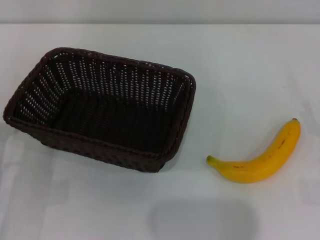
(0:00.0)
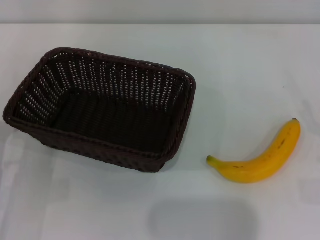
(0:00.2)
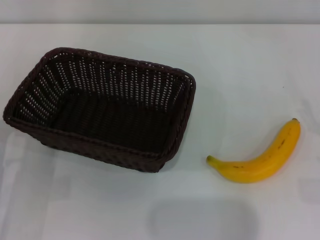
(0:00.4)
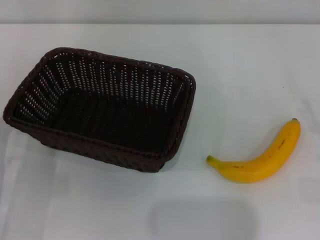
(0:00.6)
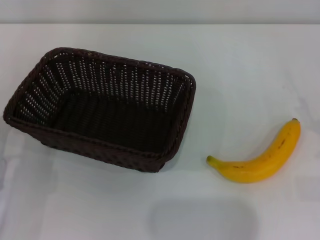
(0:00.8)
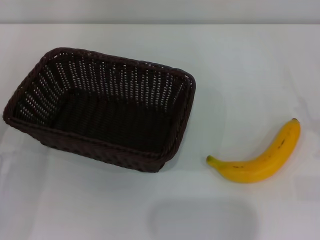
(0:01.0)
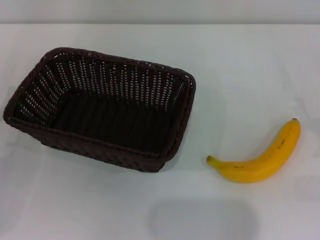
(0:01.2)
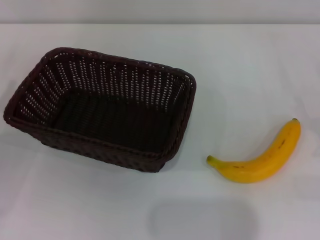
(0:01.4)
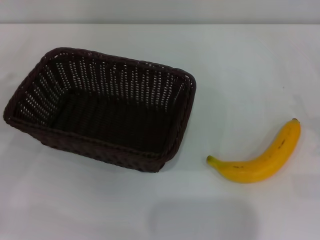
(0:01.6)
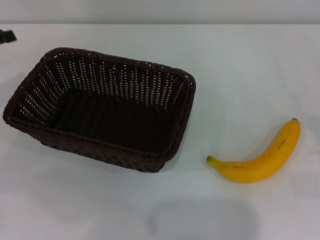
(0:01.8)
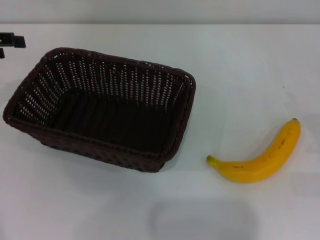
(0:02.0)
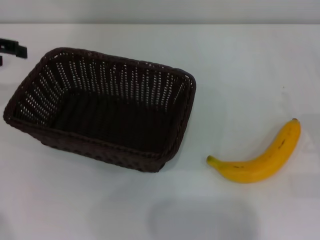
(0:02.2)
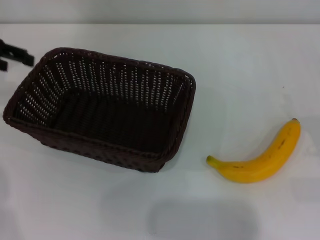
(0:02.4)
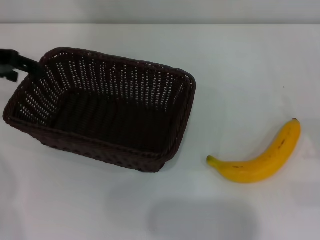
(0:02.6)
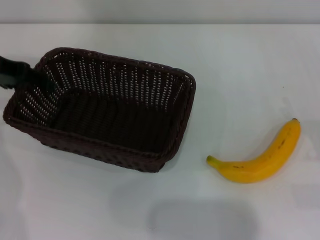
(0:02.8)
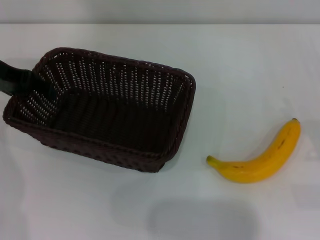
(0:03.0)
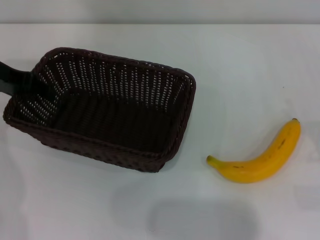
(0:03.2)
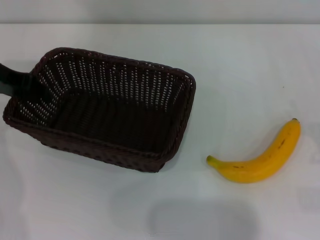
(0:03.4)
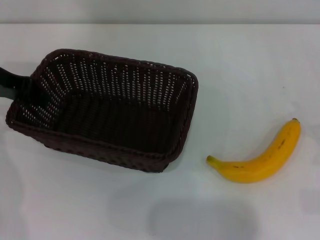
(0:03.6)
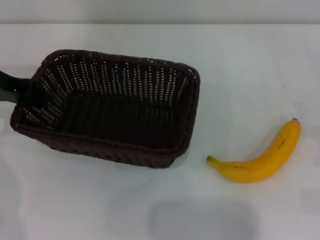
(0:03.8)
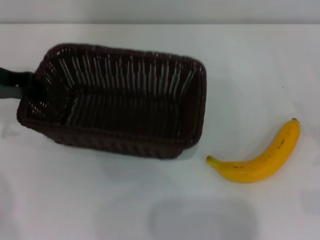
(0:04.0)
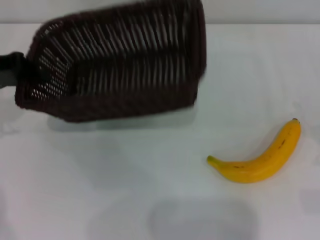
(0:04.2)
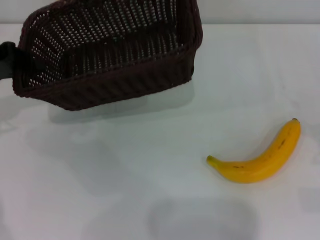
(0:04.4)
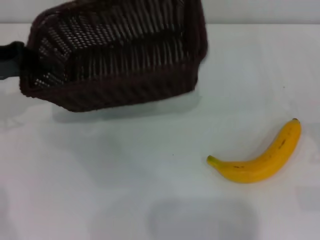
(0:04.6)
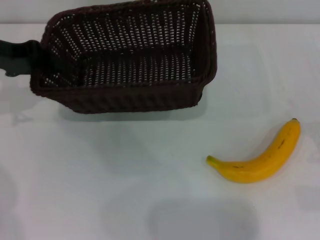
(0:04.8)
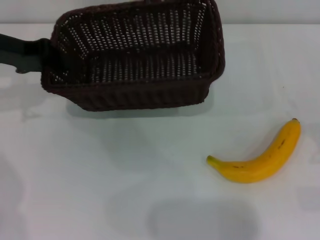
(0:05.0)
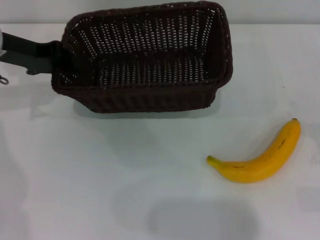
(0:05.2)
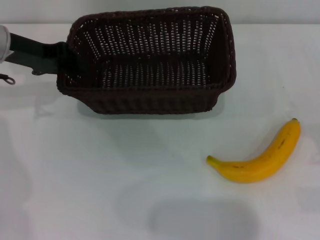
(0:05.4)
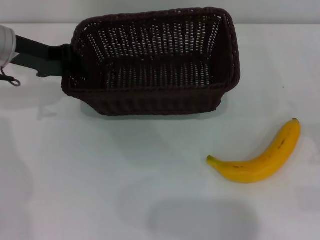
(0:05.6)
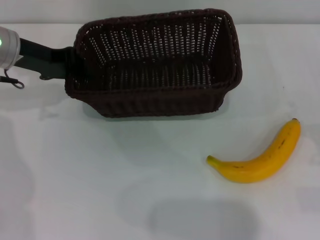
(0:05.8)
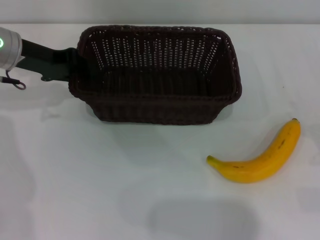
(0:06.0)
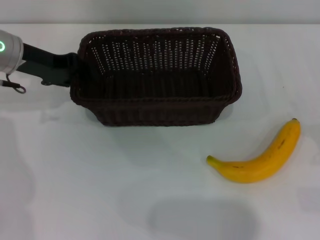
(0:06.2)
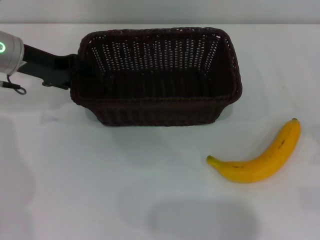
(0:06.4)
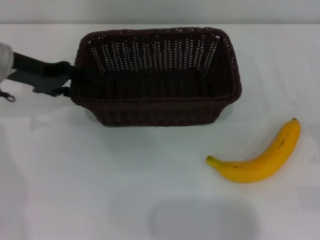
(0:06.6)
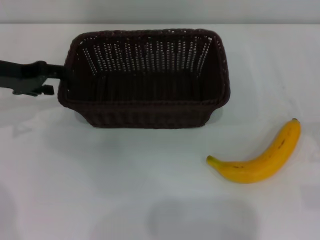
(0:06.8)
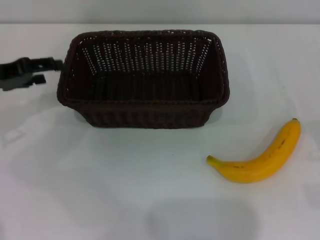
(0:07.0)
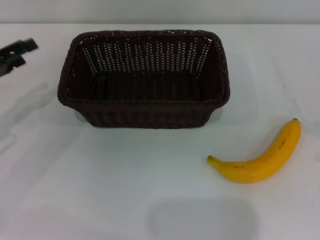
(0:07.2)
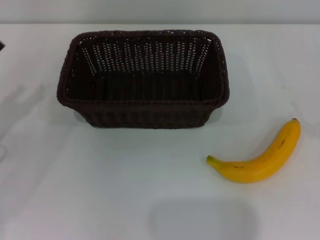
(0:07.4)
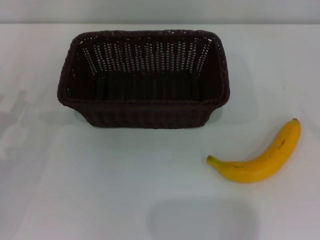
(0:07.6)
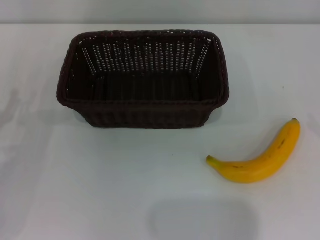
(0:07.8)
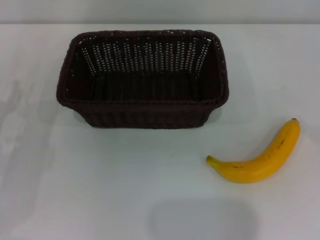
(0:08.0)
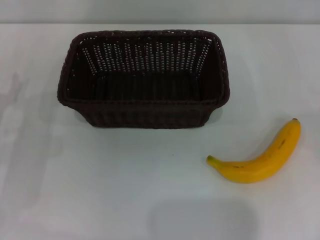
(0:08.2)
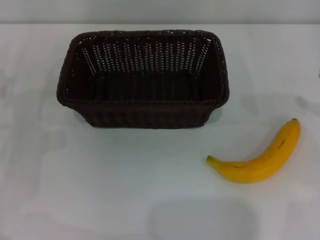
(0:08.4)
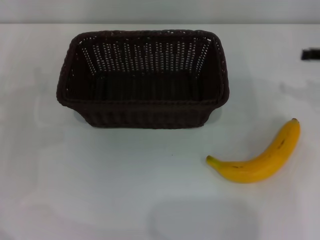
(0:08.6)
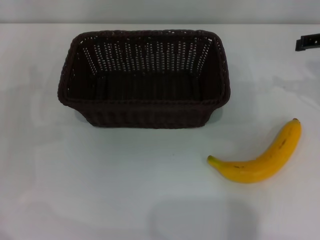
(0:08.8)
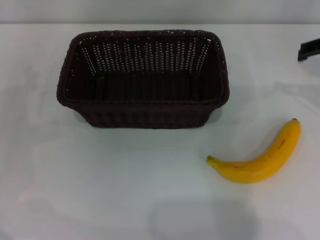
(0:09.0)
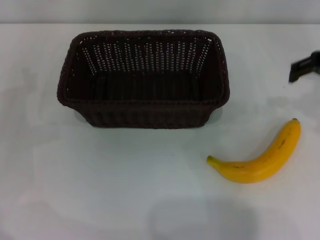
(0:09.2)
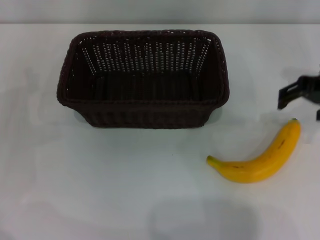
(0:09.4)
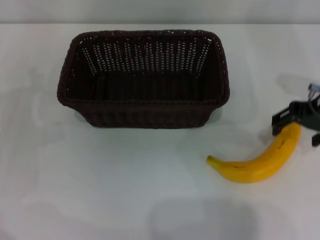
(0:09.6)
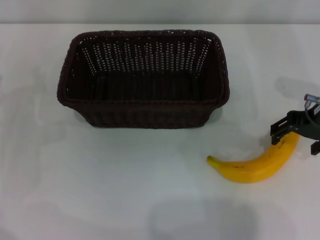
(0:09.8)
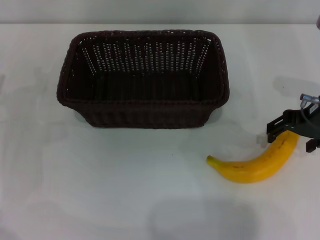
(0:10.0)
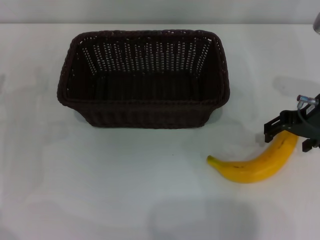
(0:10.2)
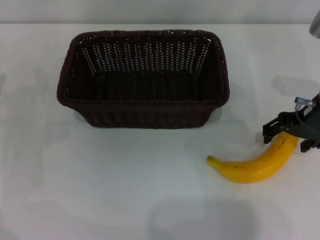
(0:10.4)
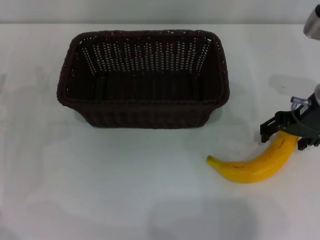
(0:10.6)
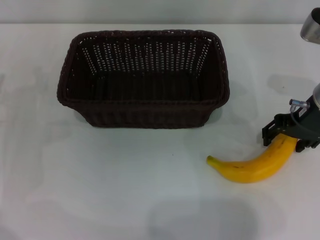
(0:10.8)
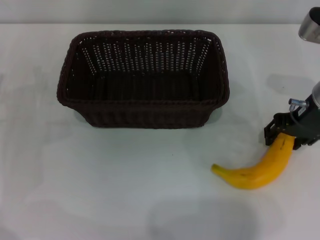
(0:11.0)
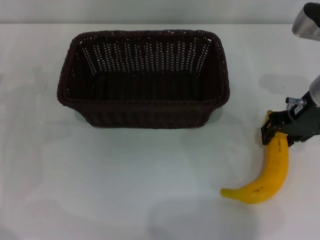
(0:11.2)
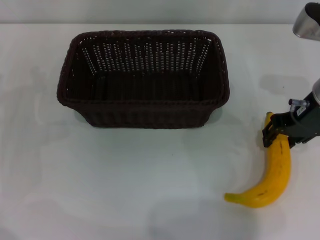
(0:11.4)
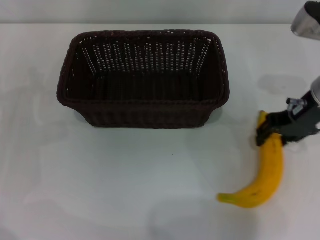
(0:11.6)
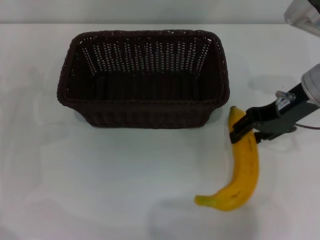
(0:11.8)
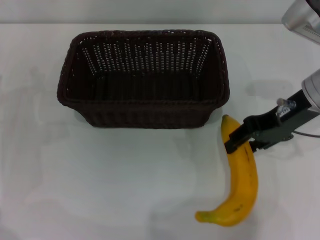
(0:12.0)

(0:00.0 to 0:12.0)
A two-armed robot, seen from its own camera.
Step, 0:00.0 - 0:04.0: Pick up the dark basket with the left gripper.
Step, 0:04.2 - 0:06.8: Place the dark basket in the center of view with the left gripper.
Step, 0:07.0 - 0:11.6: Pick up the banana with the right gripper.
0:01.6 - 0:03.0: The left gripper shifts some 15 cm to the right, forward and upward.
0:03.0 - 0:04.4: The left gripper ends up about 5 cm from where it was, and closes.
0:04.4 - 0:06.0: The left gripper goes roughly 10 cm to the right.
0:06.0 - 0:07.6: The right gripper travels to the right by about 10 cm. The left gripper travels backward, downward and to the left by approximately 20 cm, and opens.
0:07.6 - 0:09.0: The right gripper heads to the left, upward and forward, covering about 30 cm.
0:09.0 - 0:10.4: The right gripper goes some 10 cm downward and to the left.
0:10.4 - 0:12.0: The right gripper closes.

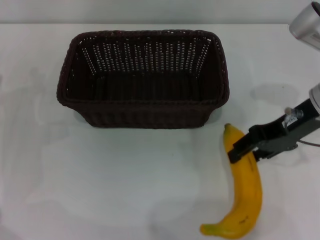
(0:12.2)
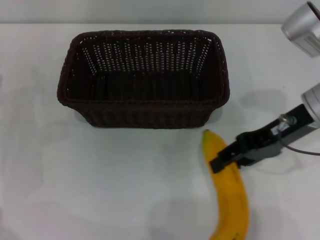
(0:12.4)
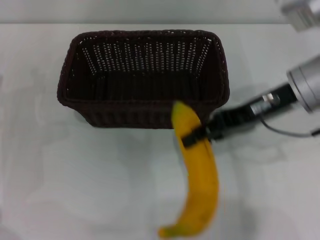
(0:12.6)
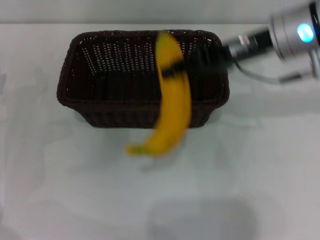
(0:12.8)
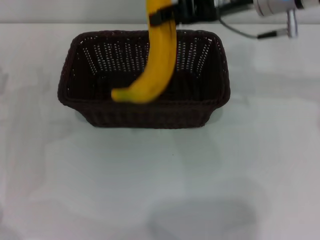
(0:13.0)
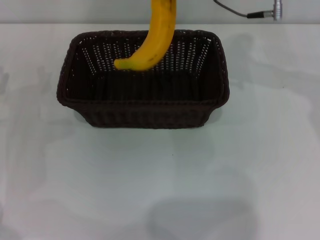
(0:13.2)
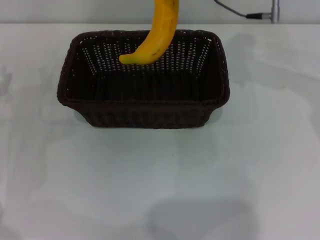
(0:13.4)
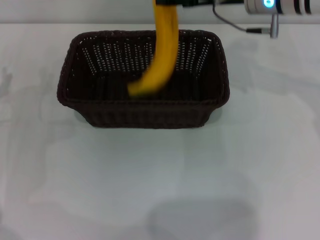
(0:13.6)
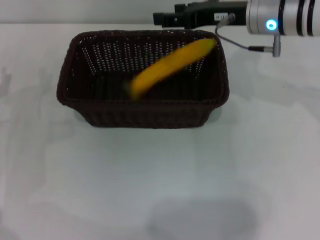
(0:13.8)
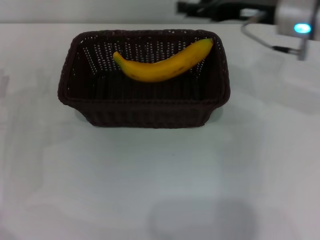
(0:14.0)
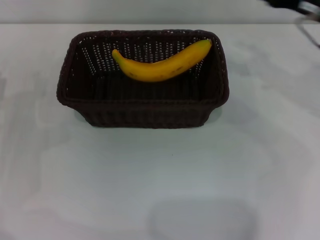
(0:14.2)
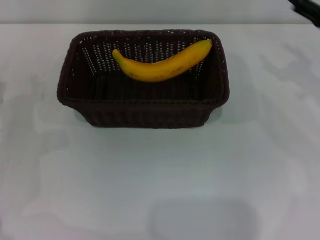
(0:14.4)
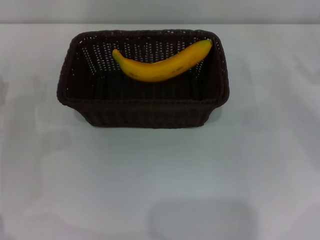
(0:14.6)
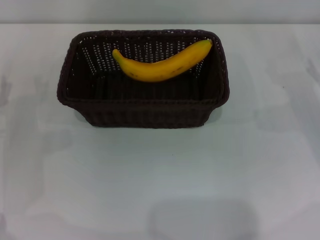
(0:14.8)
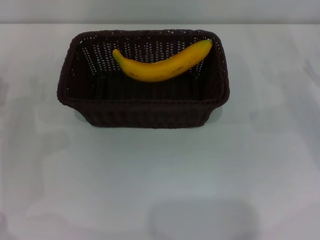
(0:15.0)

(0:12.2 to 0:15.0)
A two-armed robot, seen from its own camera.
Step, 0:12.2 - 0:13.6: Place the banana into the dark basket with the right gripper.
0:12.2 - 0:13.6: The right gripper goes about 15 cm forward and to the left.
0:13.6 - 0:15.0: The right gripper goes some 25 cm to the right, downward and backward, and opens its fingers.
